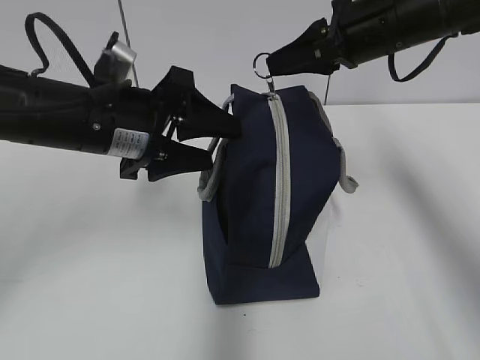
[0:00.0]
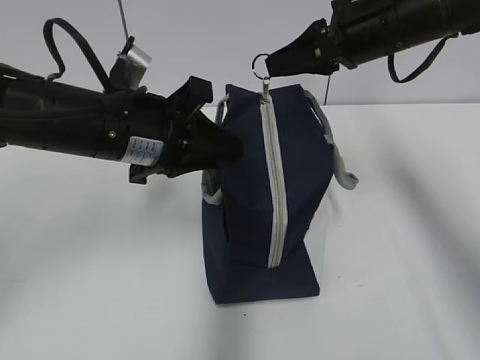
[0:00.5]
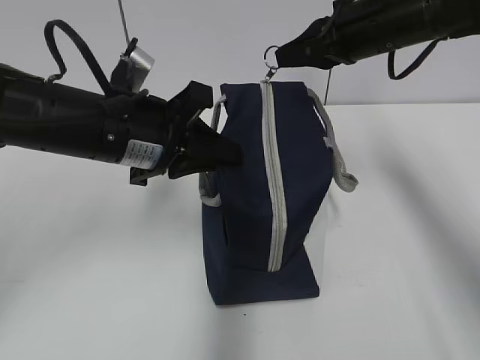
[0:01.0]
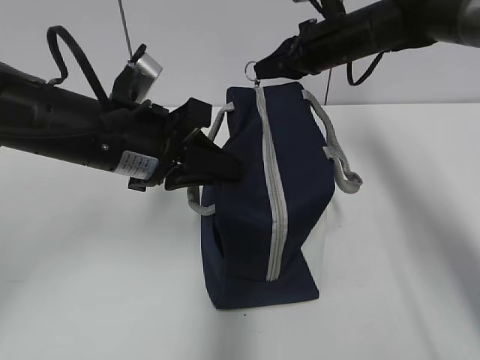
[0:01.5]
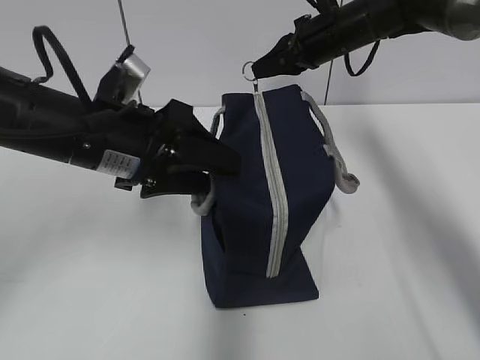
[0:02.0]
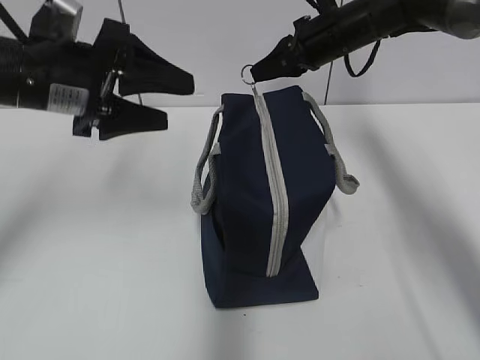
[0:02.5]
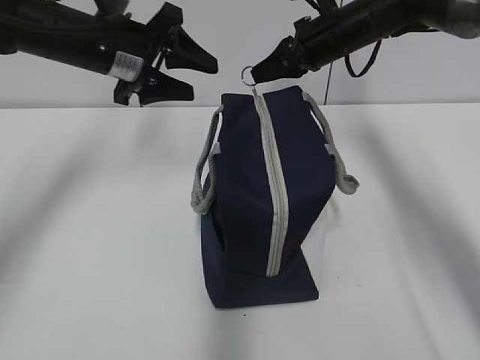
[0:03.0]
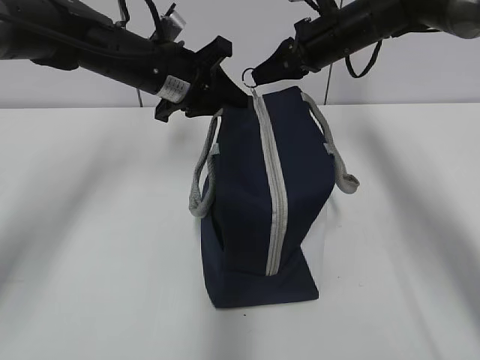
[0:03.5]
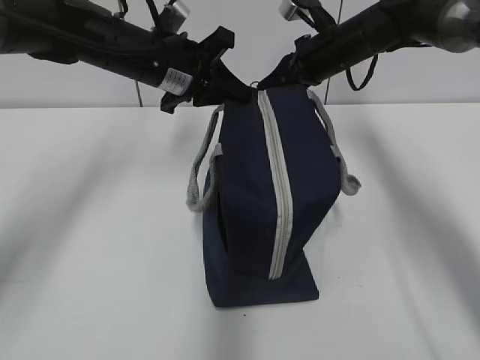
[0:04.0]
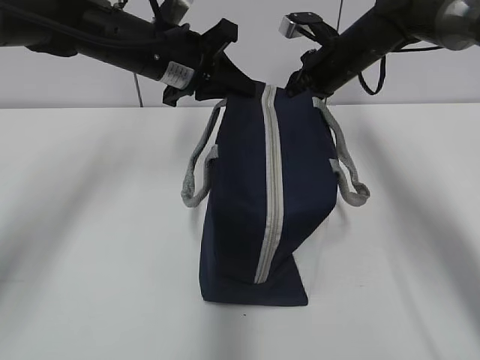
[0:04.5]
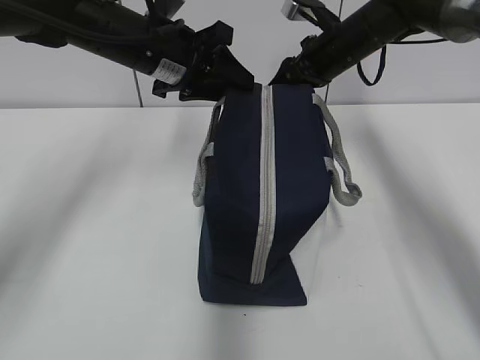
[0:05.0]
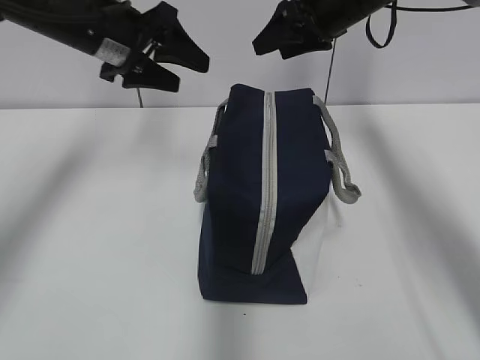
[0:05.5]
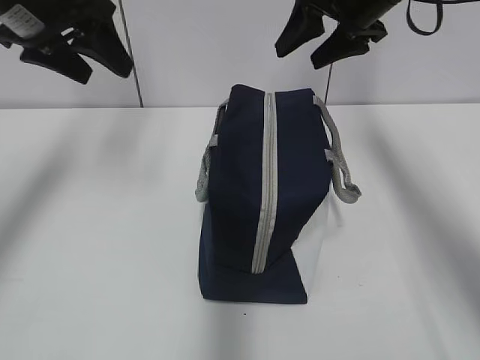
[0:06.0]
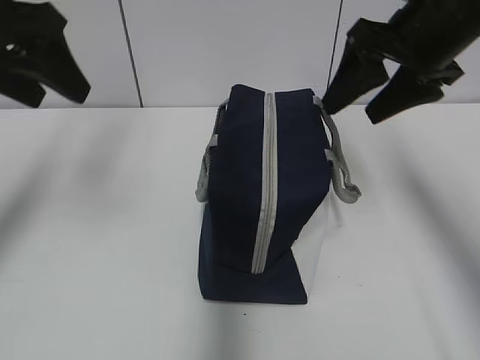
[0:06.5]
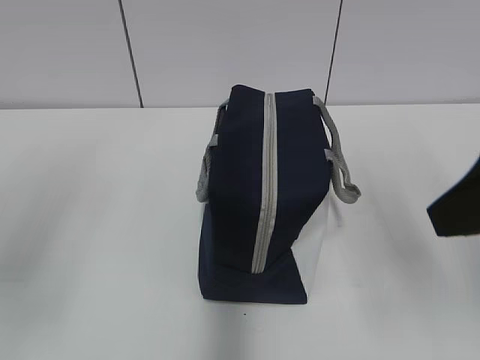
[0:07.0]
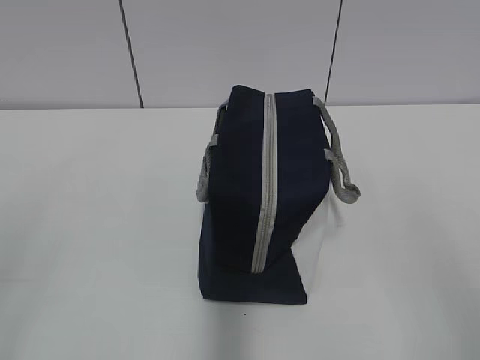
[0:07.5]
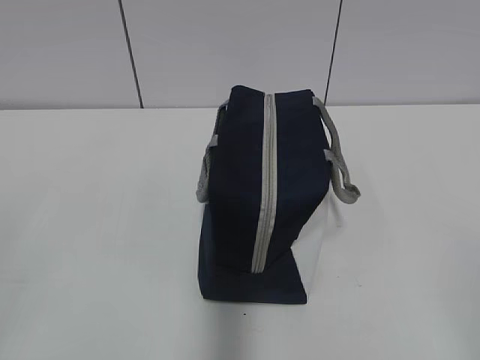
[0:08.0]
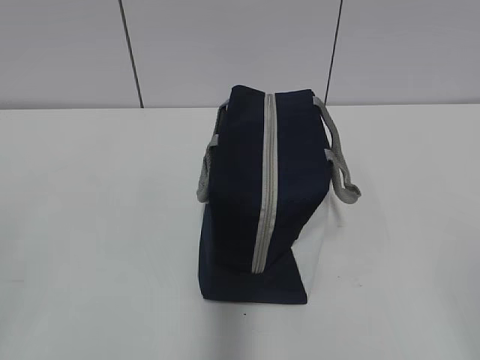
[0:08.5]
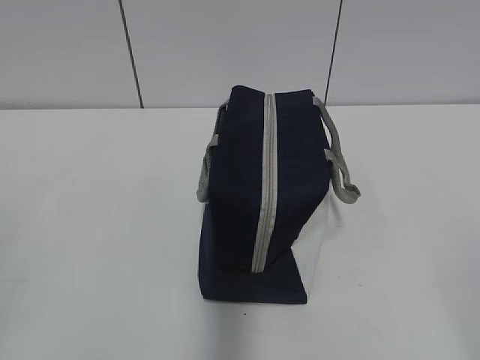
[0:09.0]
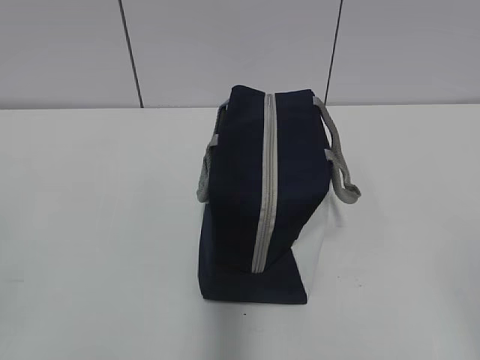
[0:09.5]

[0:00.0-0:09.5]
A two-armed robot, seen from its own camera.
0:00.0 to 0:02.0: The left gripper closes, then reopens. The right gripper moves forward and downward, approximately 15 cm.
0:02.0 to 0:04.0: The left gripper goes roughly 15 cm forward, and closes its fingers.
0:04.0 to 0:05.5: The right gripper heads upward, covering approximately 5 cm, and opens; the left gripper goes about 5 cm to the left, and opens up.
0:05.5 to 0:07.5: The grippers both shift backward by about 40 cm.

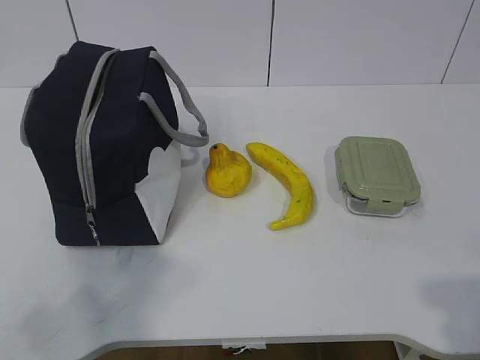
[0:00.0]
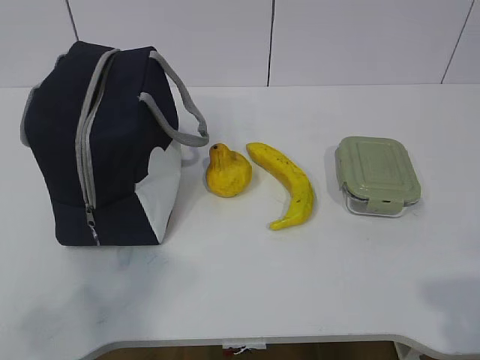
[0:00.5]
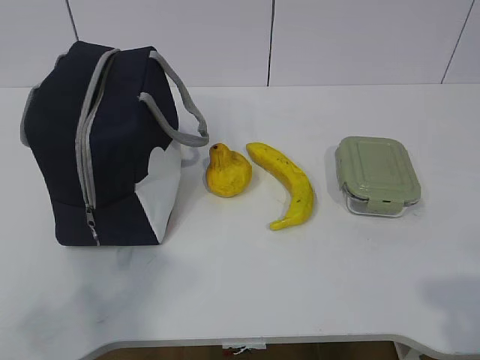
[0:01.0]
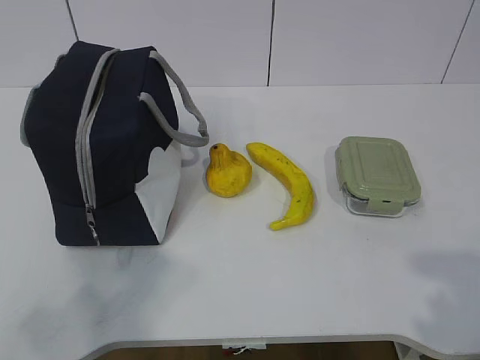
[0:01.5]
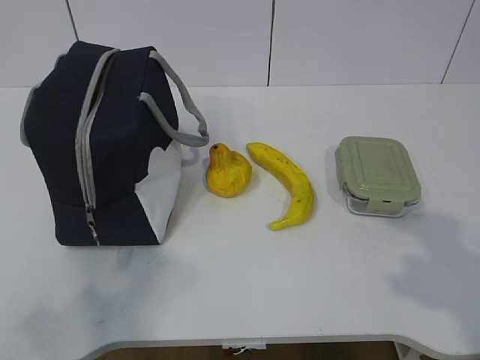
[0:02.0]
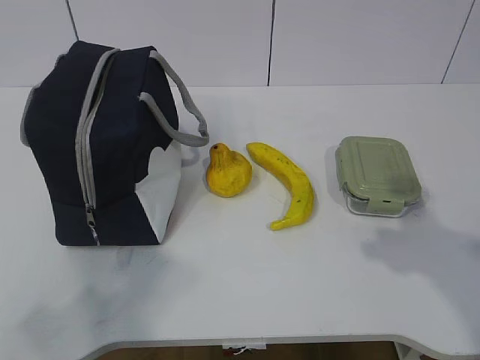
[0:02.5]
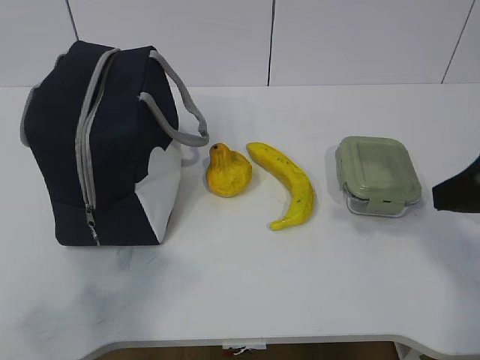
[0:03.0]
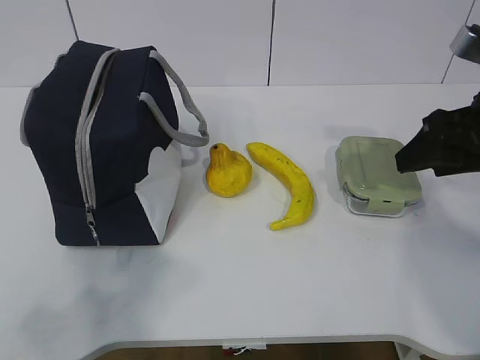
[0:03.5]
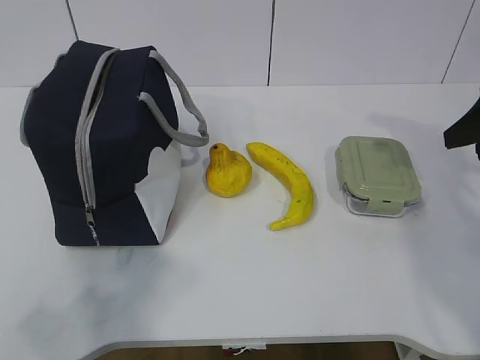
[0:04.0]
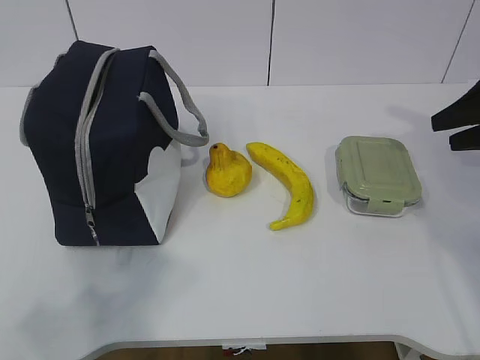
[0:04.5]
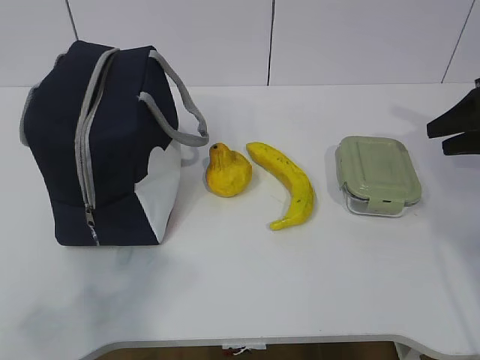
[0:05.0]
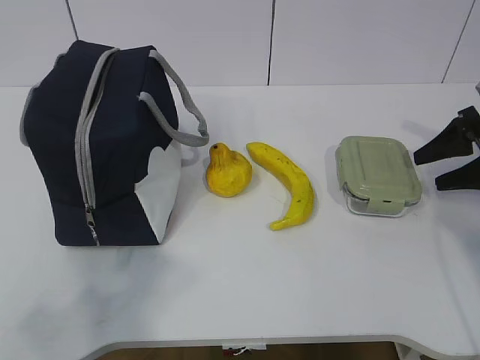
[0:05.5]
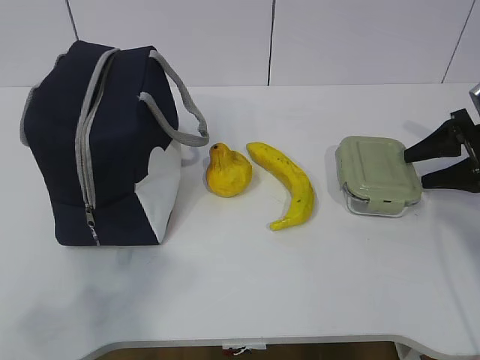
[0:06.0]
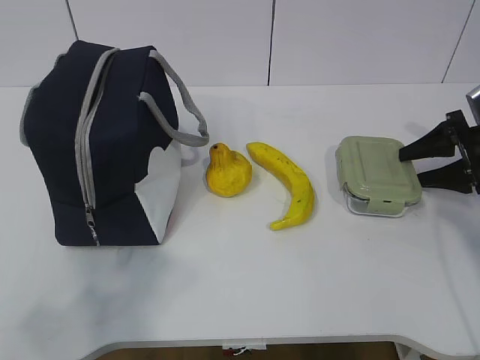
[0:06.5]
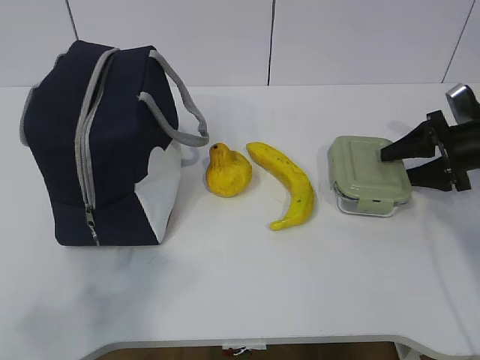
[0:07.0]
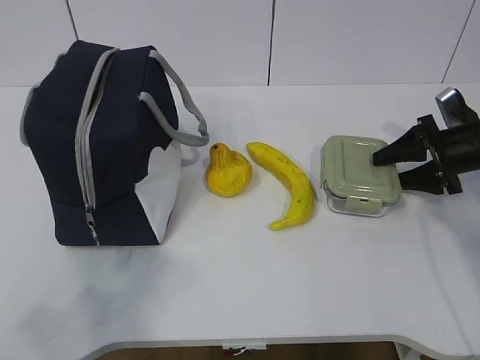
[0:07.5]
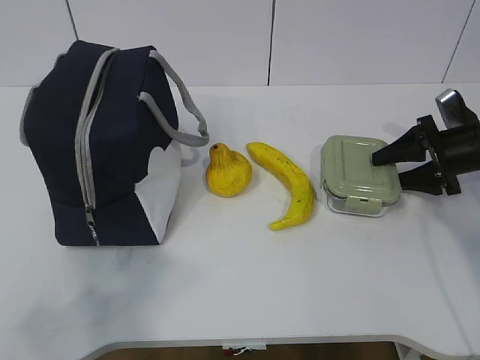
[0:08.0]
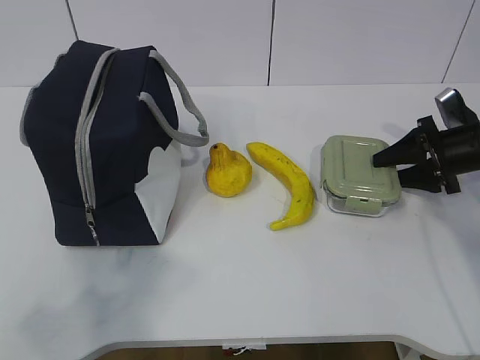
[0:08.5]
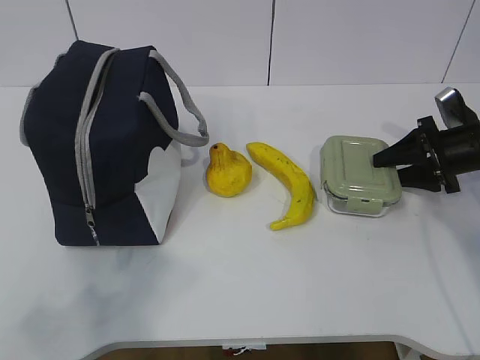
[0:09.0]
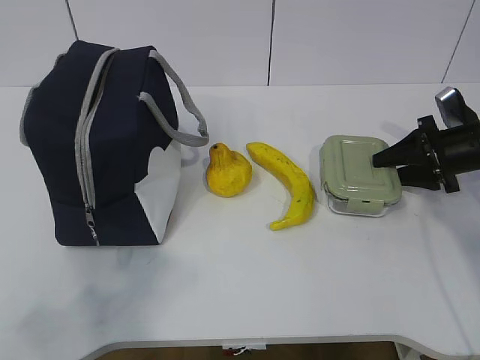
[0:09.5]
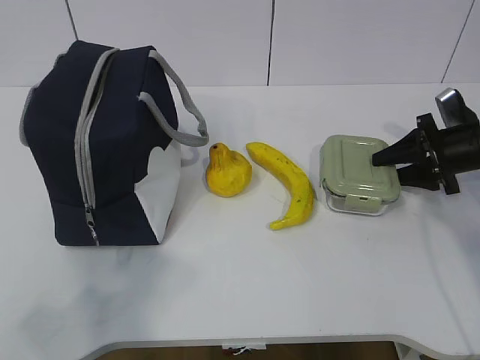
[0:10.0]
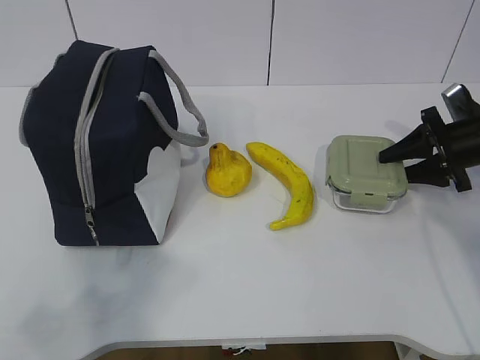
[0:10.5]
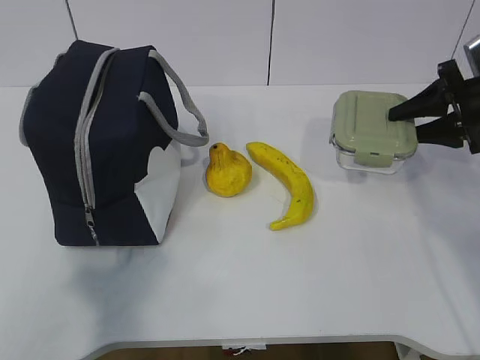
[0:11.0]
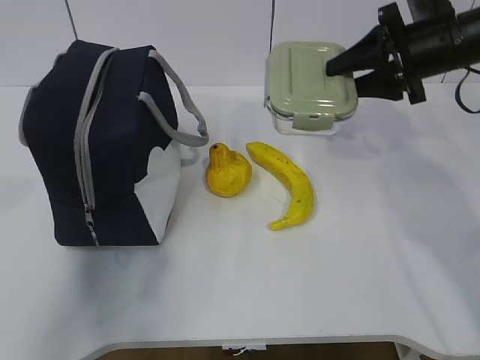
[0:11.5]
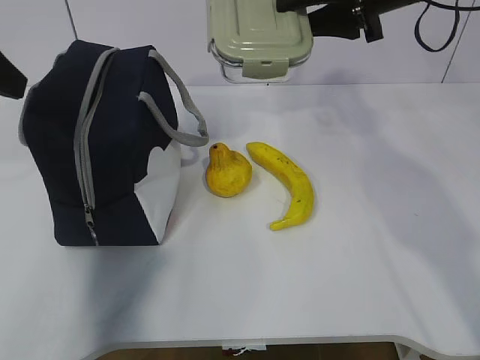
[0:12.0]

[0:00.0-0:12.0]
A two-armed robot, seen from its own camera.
Step, 0:00.0 to 0:08.0: Grab the lunch box with your right hand.
Step, 0:08.5 to 0:11.0: Grab the lunch bag with your left hand.
0:02.0 to 0:04.0: The right gripper goes some 25 cm forward.
0:04.0 to 0:06.0: The right gripper is displaced downward, forward and to the right by approximately 15 cm.
0:06.0 to 0:08.0: There are only small adjustments of the grippers.
0:08.0 to 0:10.0: Both grippers stay put.
0:10.0 to 0:12.0: The left gripper moves forward, some 25 cm, and opens up, while the right gripper is displaced upward and to the left by some 25 cm.

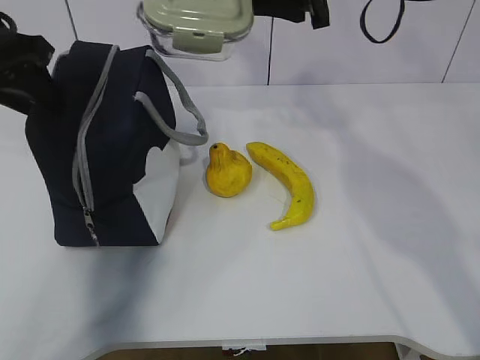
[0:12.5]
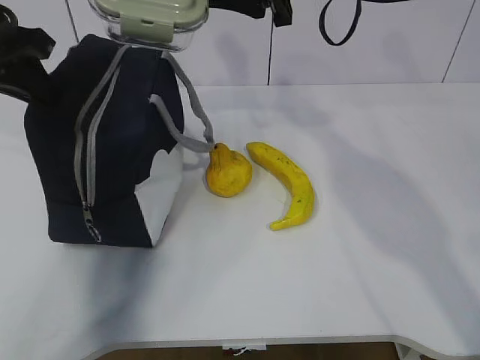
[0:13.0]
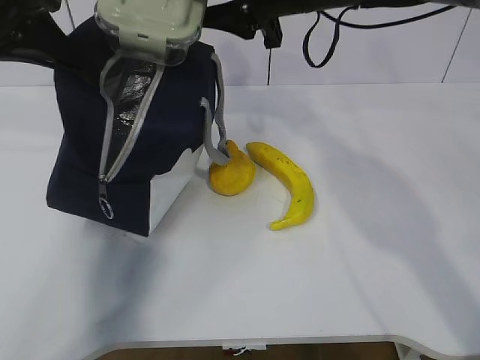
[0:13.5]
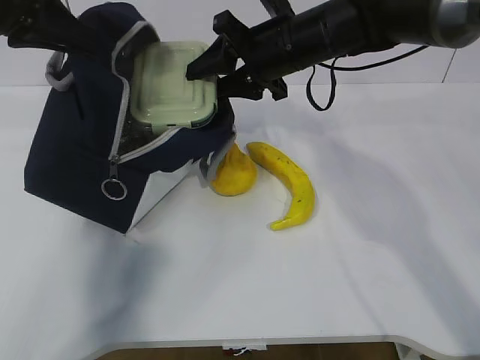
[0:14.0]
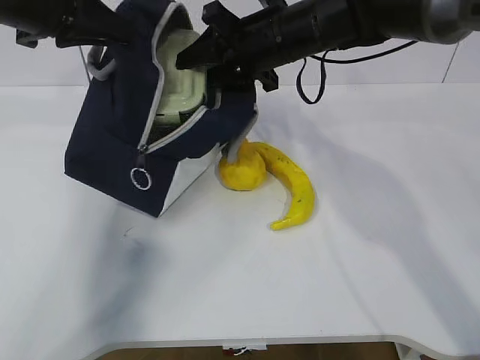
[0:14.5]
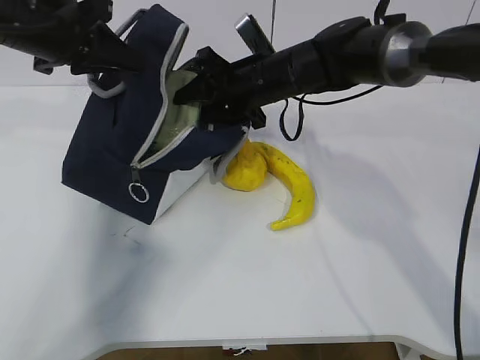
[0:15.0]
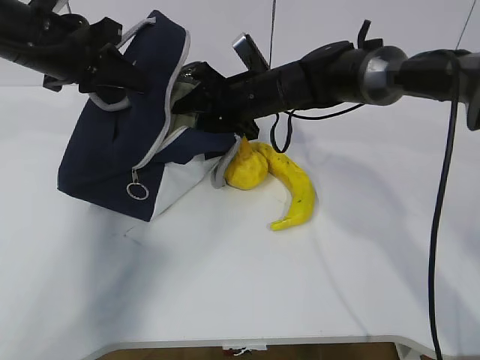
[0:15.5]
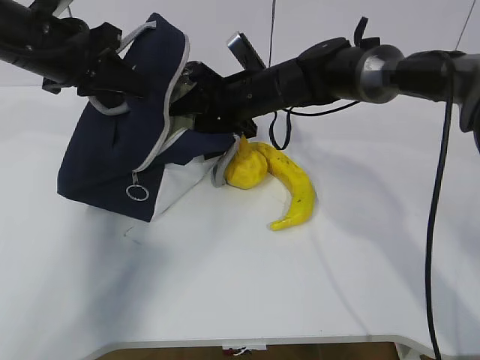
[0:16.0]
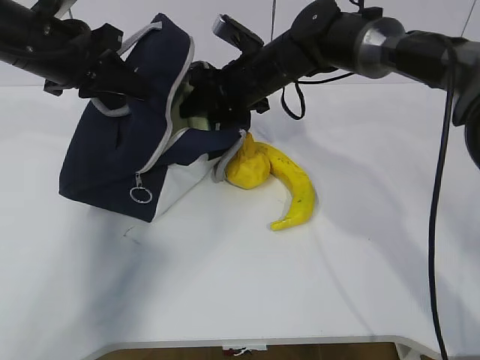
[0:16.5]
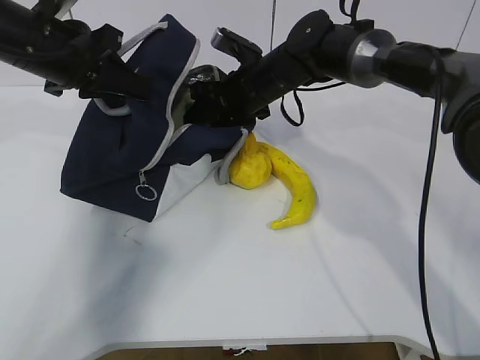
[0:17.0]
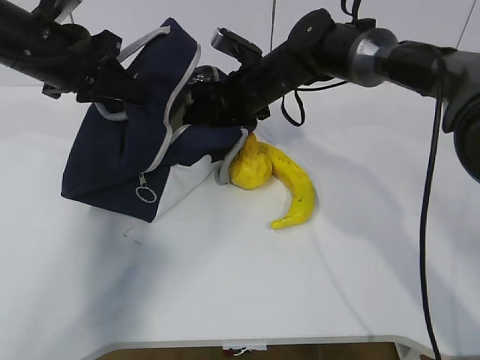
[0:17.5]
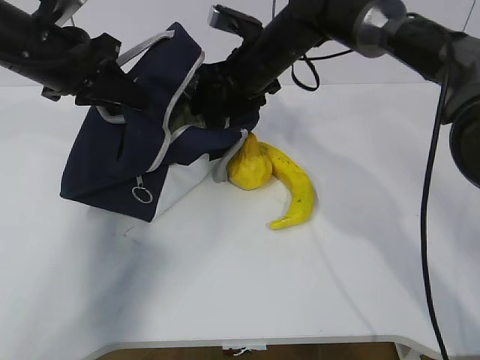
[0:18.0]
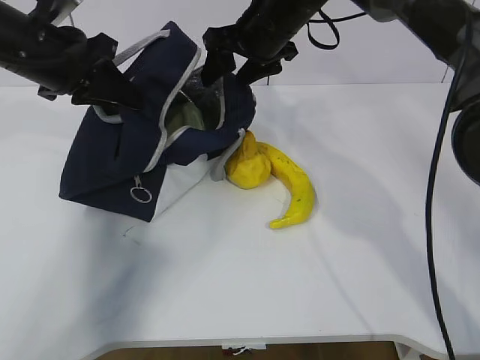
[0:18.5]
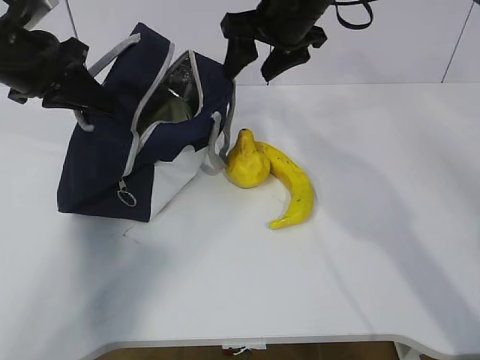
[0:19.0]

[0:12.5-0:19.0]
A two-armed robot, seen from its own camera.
Step, 0:12.5 to 0:14.5: Place it into the bag with your right hand.
Step, 0:15.0 to 0:17.5: Grab the banana with your right hand.
0:12.5 to 0:14.5: The left gripper closes up; the right gripper heads downward and to the left, covering approximately 10 cm.
0:14.5 to 0:17.0: The right gripper shifts about 10 cm downward and forward. Meanwhile the left gripper moves downward, about 5 cm.
0:17.0 to 0:19.0: The right gripper moves upward, about 10 cm.
